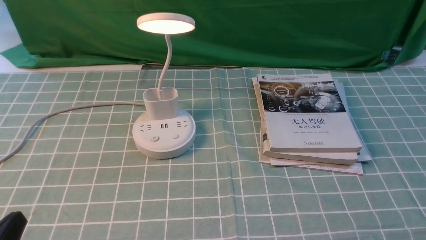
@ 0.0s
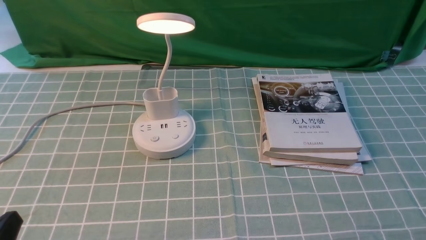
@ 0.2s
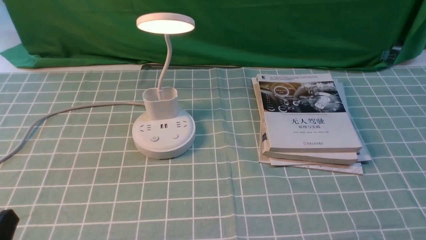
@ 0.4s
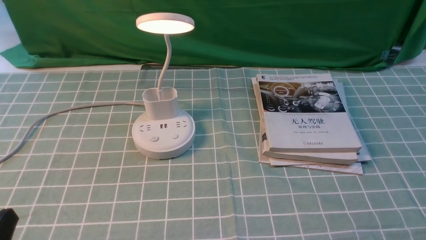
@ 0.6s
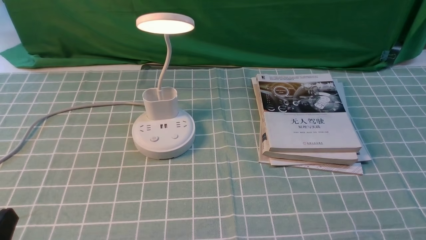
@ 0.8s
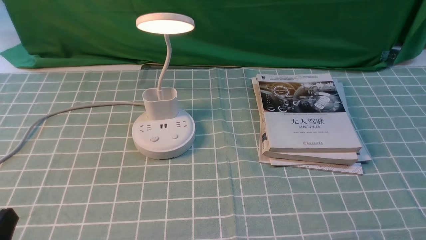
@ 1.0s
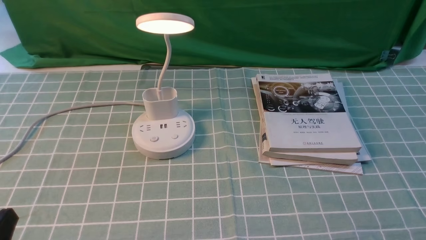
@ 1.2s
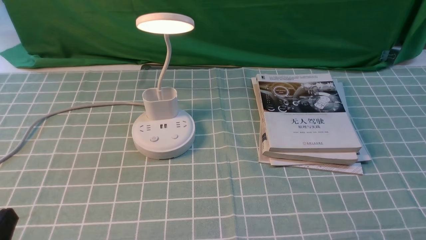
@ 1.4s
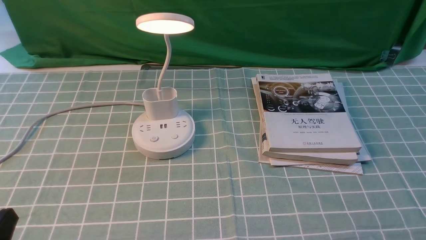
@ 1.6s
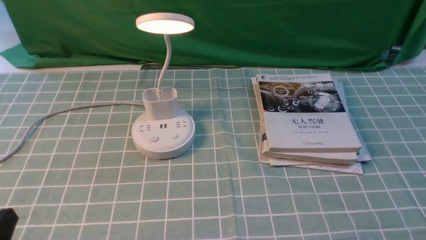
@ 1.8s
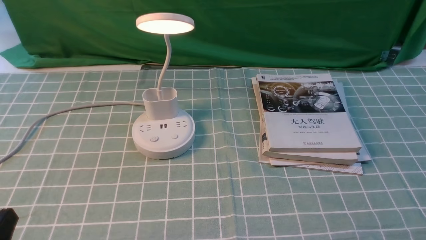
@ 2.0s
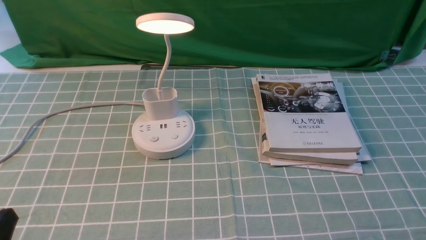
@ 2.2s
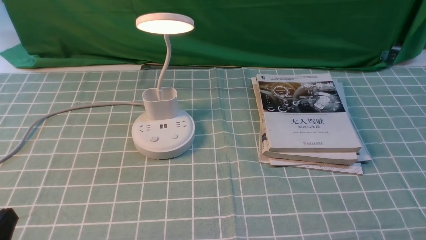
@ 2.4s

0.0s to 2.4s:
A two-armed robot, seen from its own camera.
0.0s to 1.2s: Both grippers stay about where they are.
1.2s to 2.4s: Neither gripper changes place.
